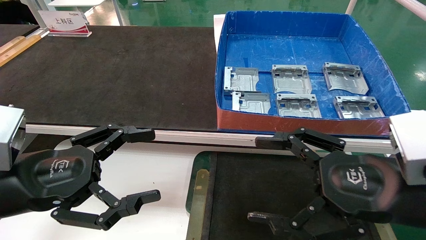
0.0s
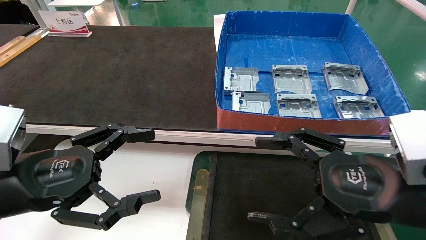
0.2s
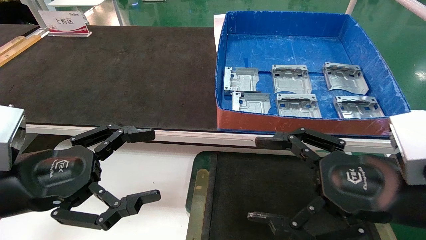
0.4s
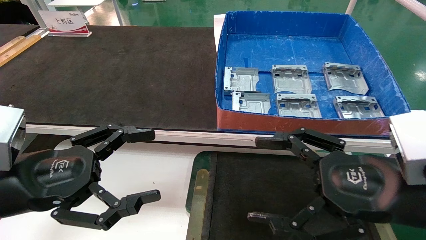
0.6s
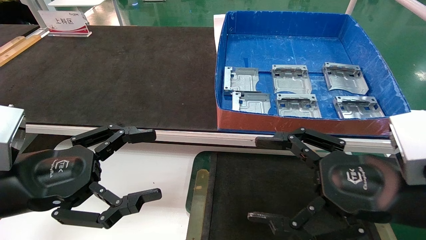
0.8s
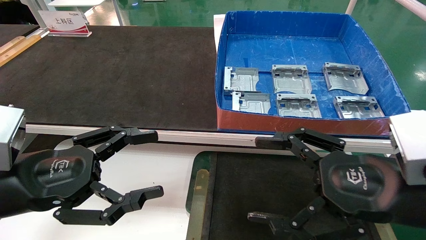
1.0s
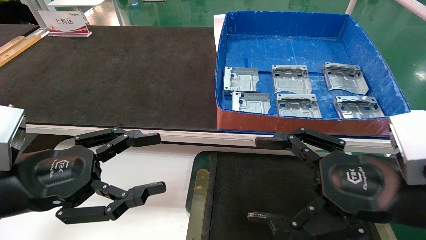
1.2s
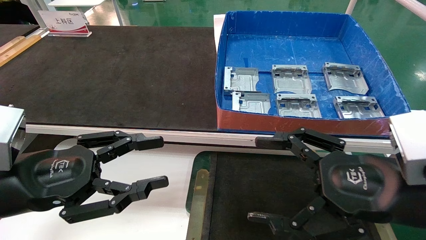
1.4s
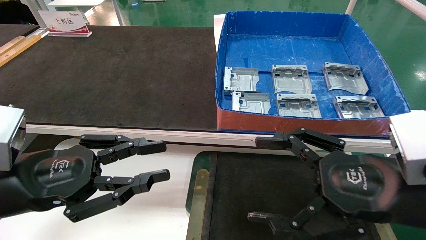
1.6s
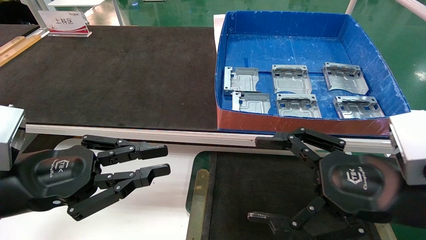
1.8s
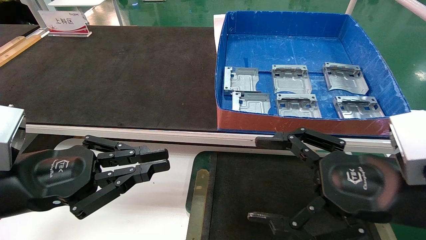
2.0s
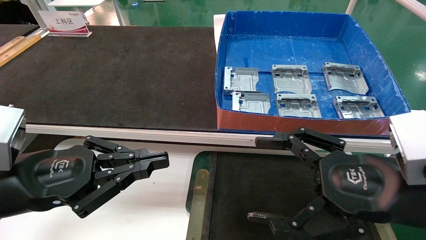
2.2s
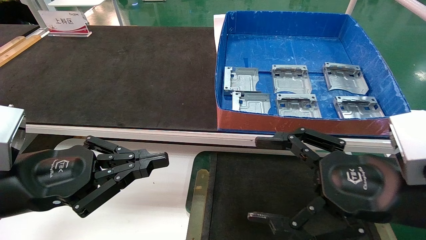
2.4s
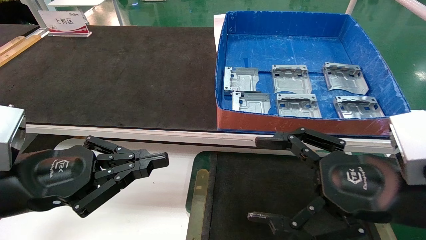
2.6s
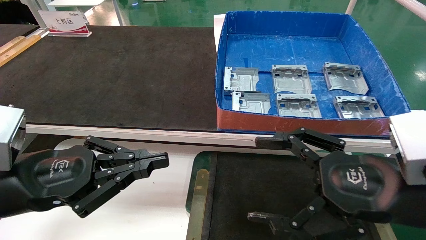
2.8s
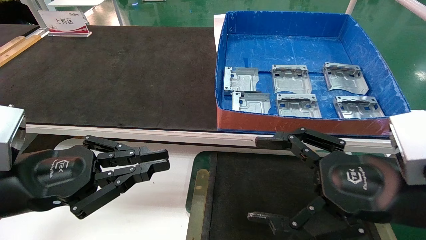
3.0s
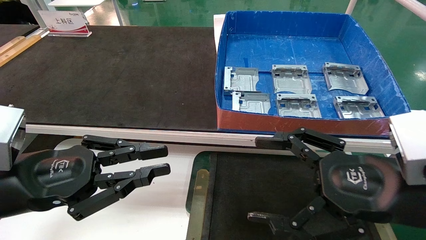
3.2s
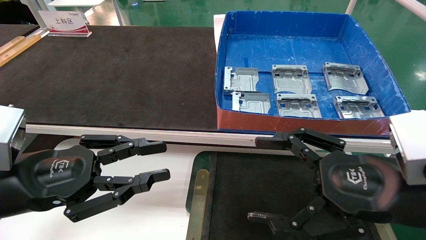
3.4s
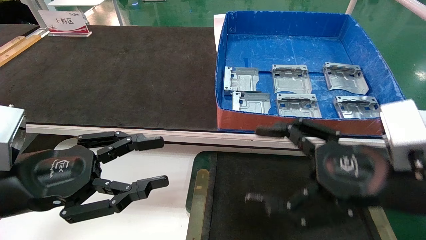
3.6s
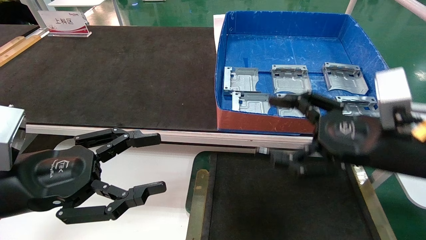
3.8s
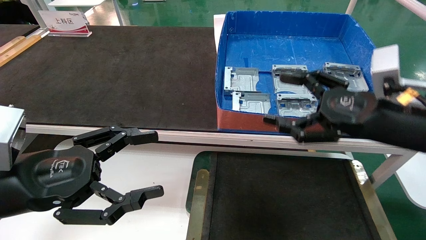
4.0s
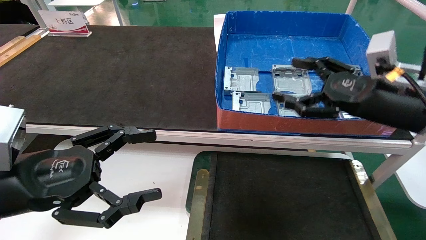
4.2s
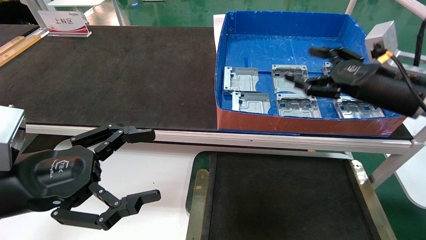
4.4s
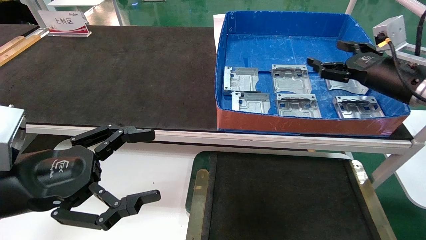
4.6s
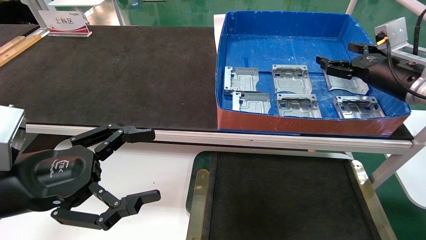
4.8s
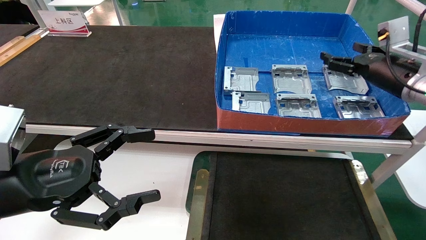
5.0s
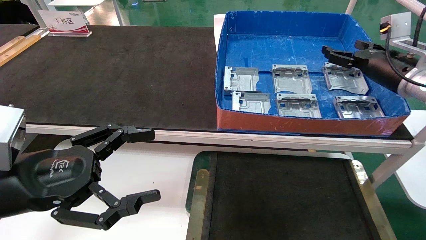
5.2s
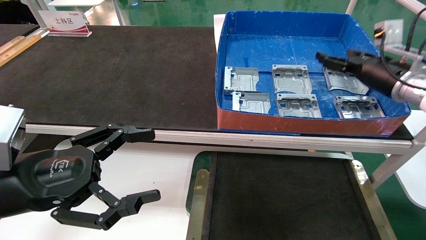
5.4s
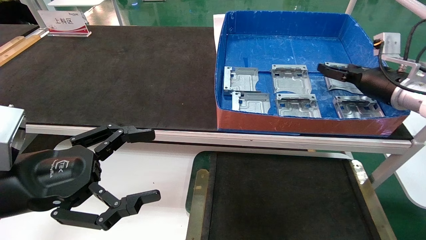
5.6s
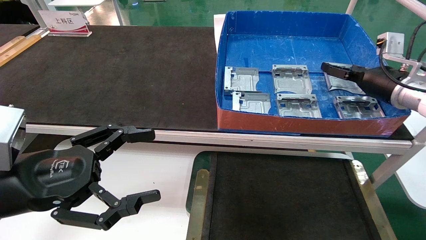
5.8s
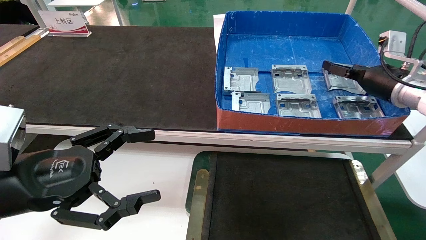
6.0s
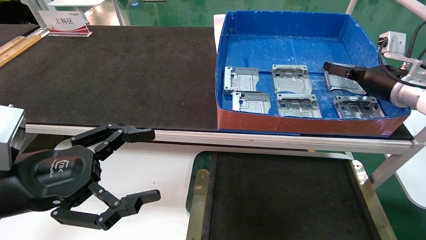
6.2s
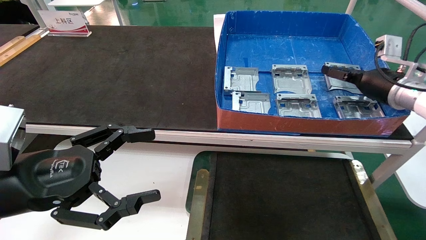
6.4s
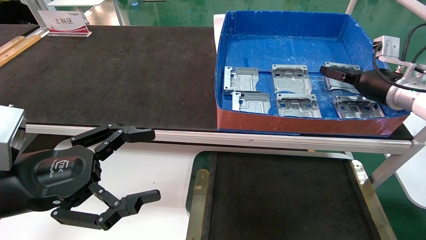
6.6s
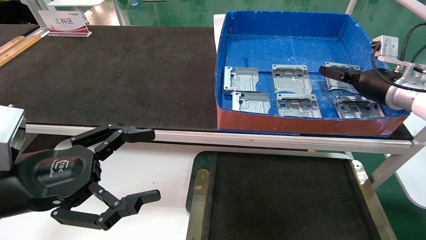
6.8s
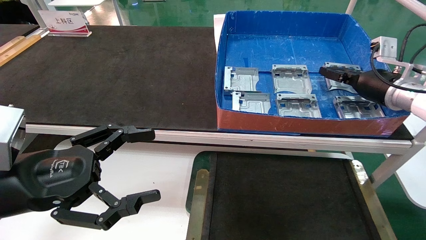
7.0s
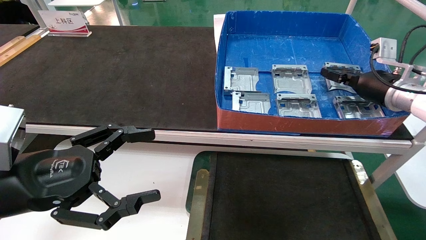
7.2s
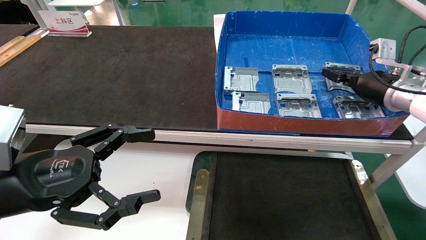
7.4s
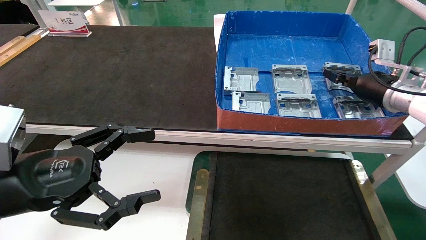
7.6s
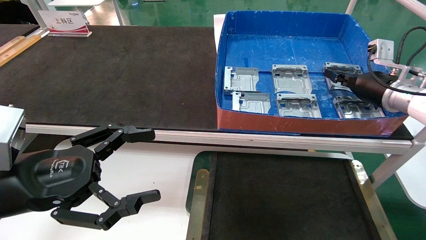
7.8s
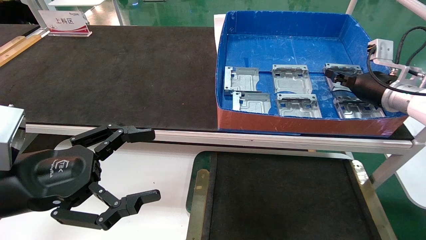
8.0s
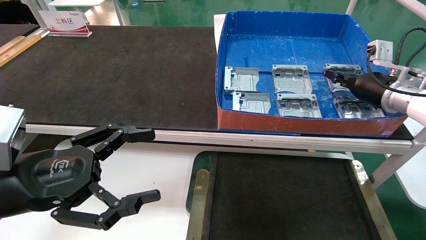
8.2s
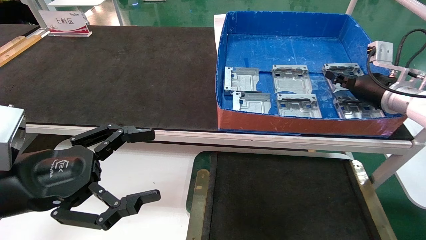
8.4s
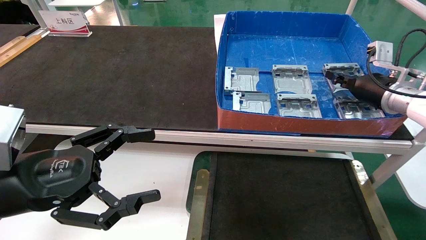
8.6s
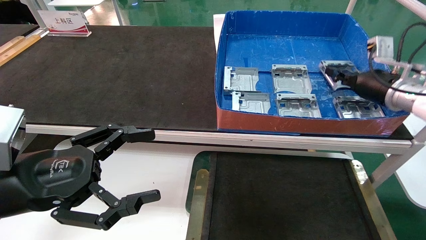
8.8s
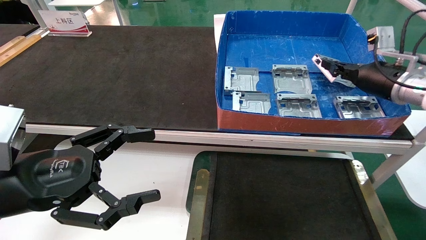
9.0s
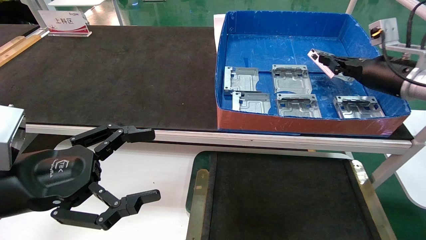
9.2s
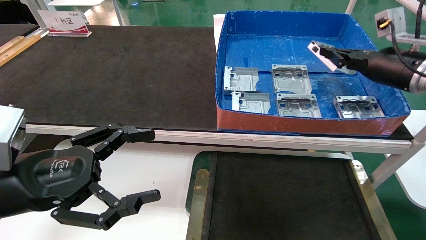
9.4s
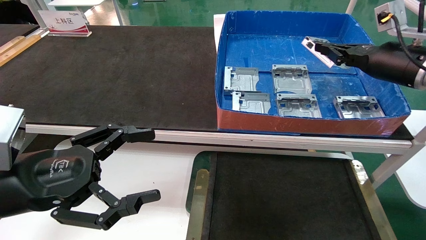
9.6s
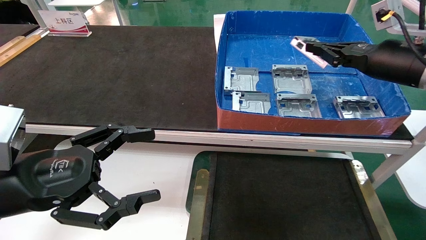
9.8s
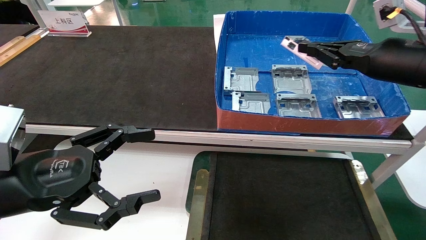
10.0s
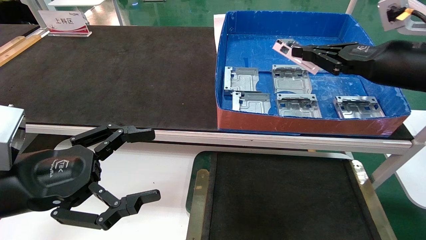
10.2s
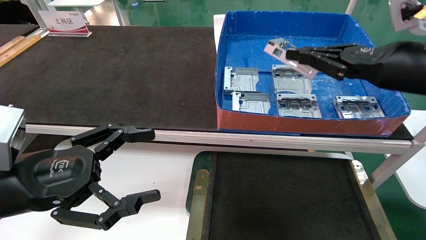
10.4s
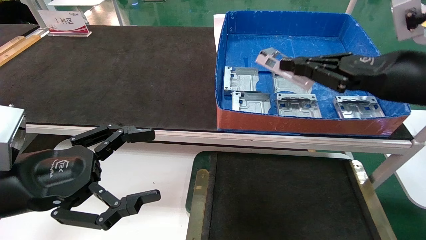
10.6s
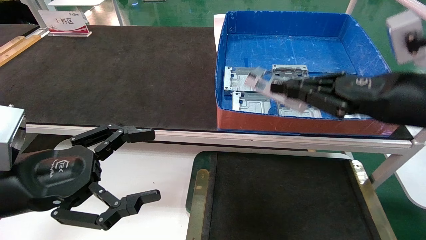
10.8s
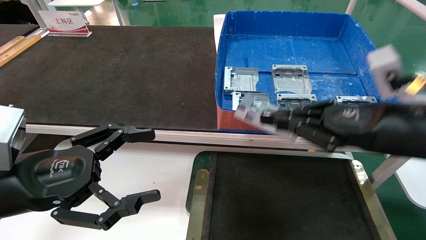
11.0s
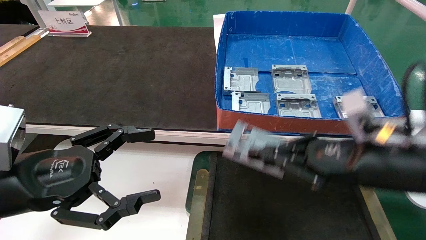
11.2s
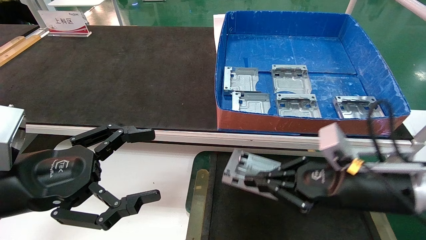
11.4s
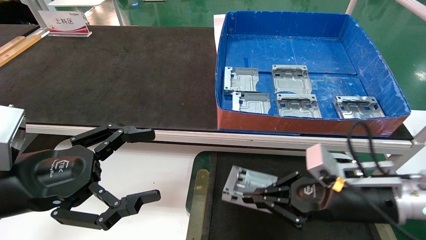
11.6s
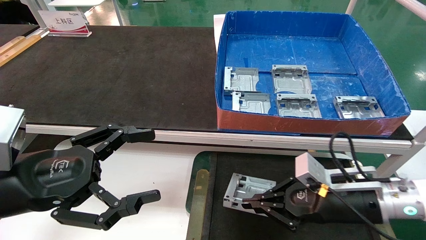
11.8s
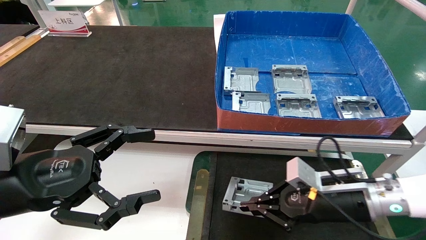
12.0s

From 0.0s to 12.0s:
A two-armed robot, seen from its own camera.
Task of the whole recording: pick up parts and place them into a black container.
Step, from 4.0s to 8.0s: Pick up the hard drive bracket from the feeding area.
From 0.0s to 1.6s: The left gripper closes up.
From 1.6s to 3.0s: The left gripper closes up.
From 3.0s to 4.4s: The left gripper opens up; the right gripper is displaced forward and to the right by about 20 cm.
From 4.4s to 6.0s: The right gripper travels forward by roughly 10 cm.
From 6.0s to 7.6s: The right gripper closes up.
From 7.6s to 9.0s: The grippers make only small movements.
From 9.0s to 10.4s: The right gripper is displaced backward by some 10 cm.
From 10.4s to 12.0s: The right gripper is displaced downward by approximately 20 cm.

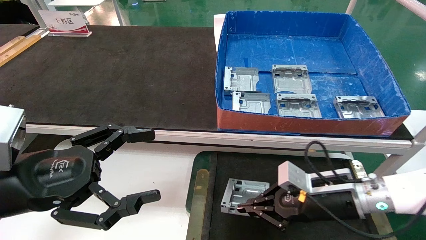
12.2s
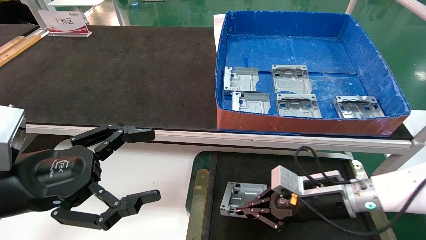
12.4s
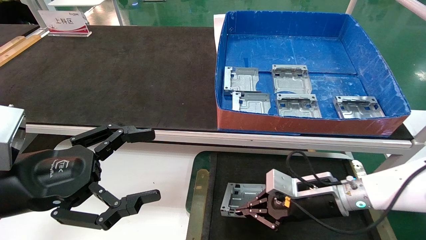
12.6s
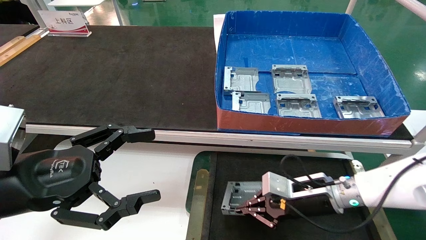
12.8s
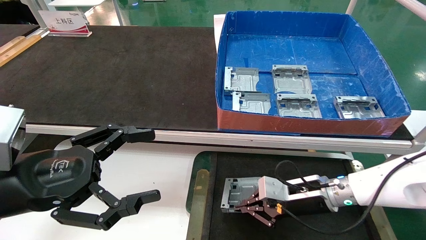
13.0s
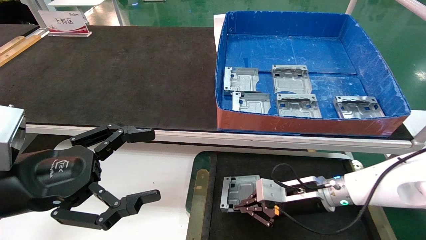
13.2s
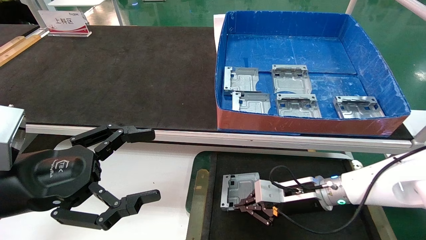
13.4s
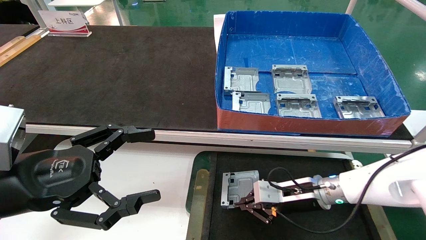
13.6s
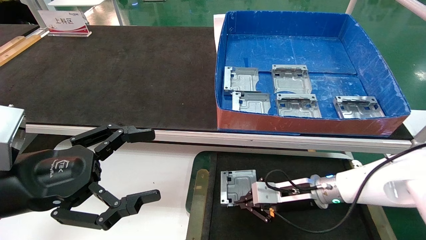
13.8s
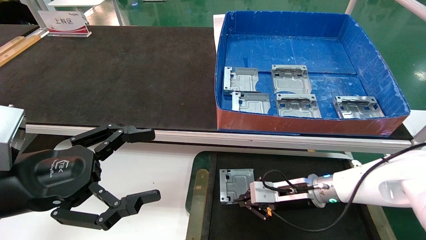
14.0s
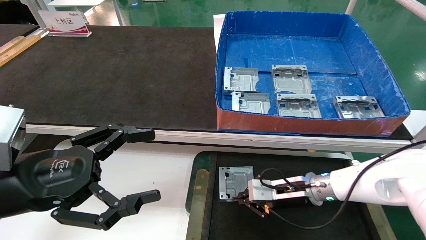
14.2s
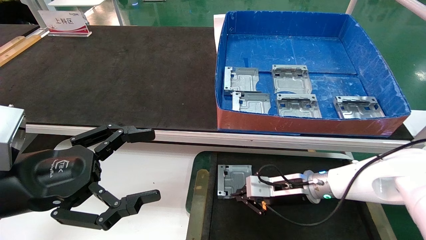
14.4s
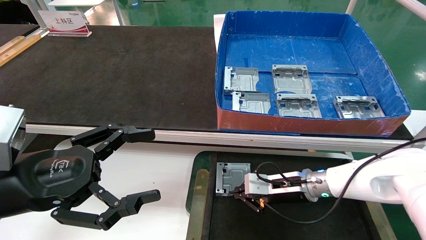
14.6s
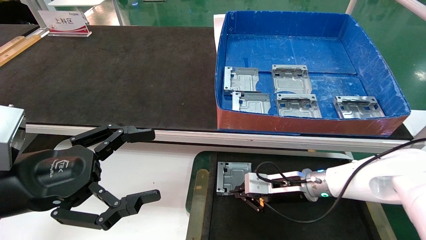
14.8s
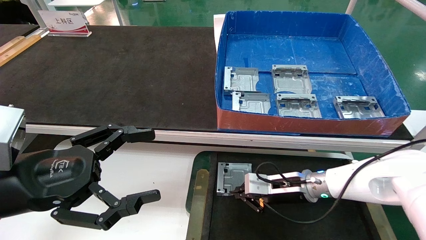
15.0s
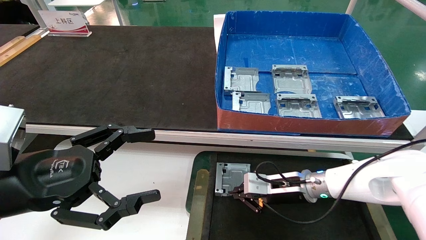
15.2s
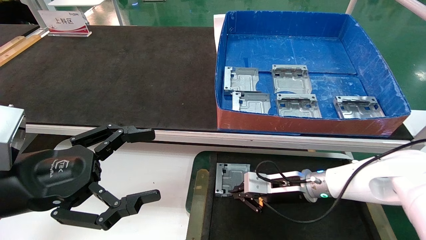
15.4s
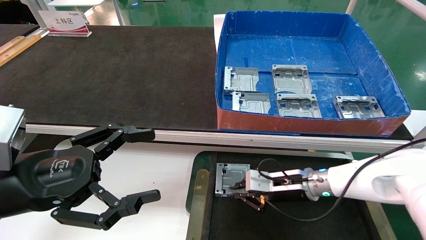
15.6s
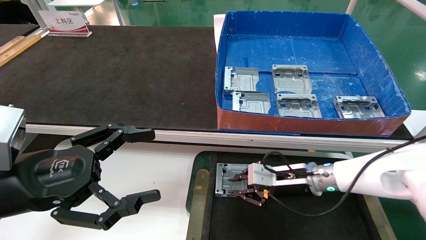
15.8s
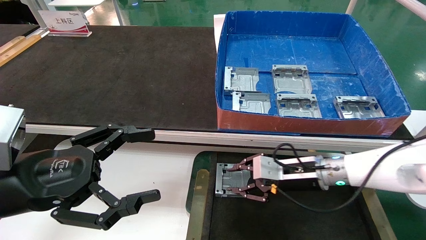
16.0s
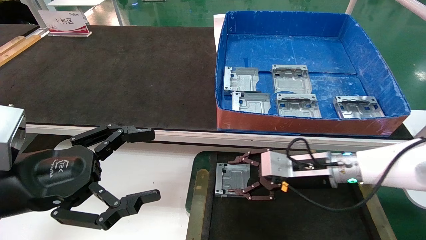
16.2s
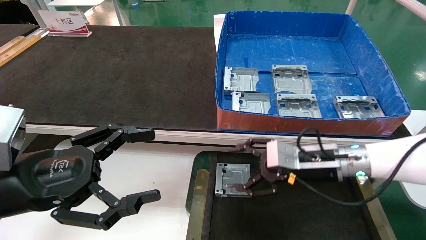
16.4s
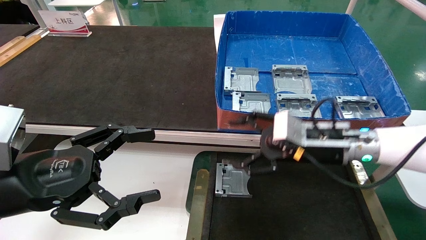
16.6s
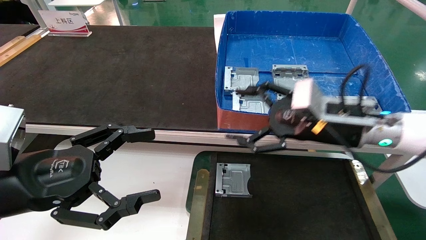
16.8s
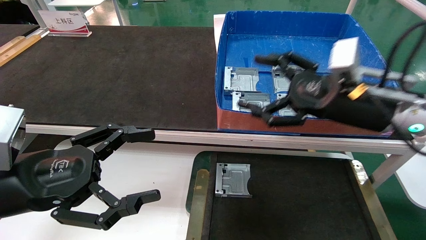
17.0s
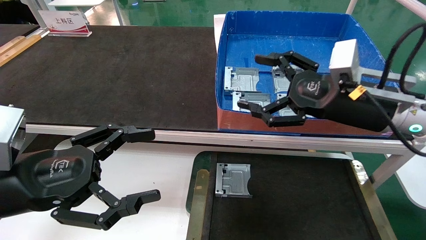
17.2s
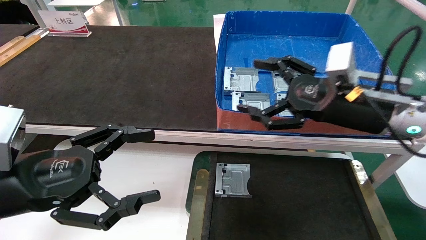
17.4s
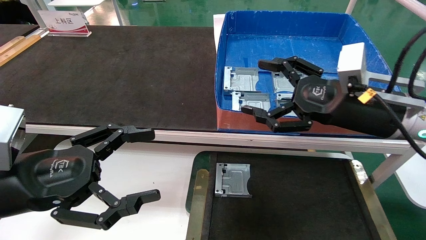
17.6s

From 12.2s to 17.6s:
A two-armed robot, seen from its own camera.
Task of the whole recording: pick up parts and place them into a black container.
Step, from 12.2s to 15.8s: Place the hard drive bracket into the box.
From 12.2s to 13.6s: The right gripper moves forward, approximately 5 cm.
From 13.6s to 15.0s: There are only small adjustments of the grippers.
From 15.0s to 16.2s: The right gripper heads upward, covering approximately 5 cm, and opens up.
From 16.2s to 17.6s: The right gripper is displaced upward and backward by some 15 cm, and opens up.
